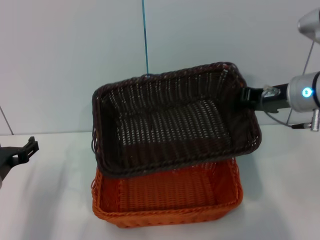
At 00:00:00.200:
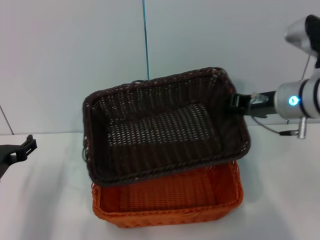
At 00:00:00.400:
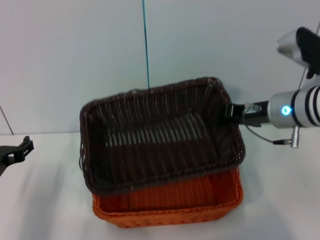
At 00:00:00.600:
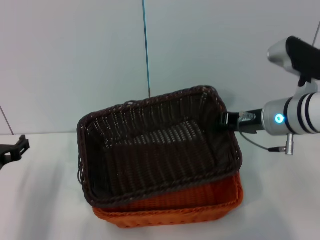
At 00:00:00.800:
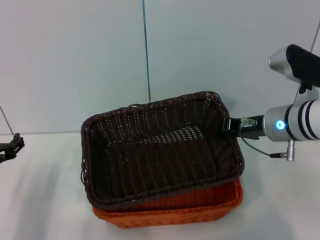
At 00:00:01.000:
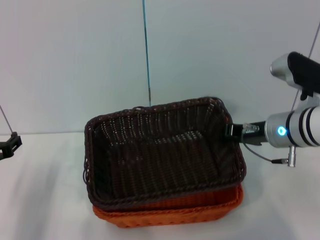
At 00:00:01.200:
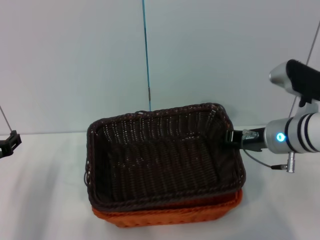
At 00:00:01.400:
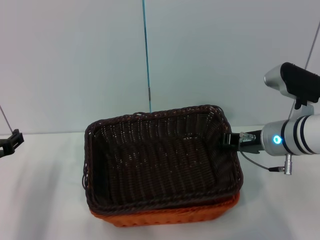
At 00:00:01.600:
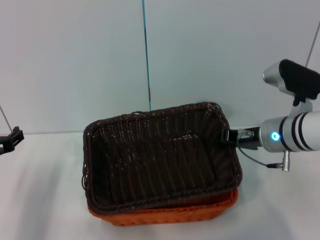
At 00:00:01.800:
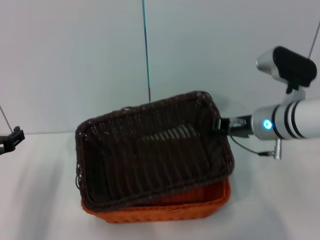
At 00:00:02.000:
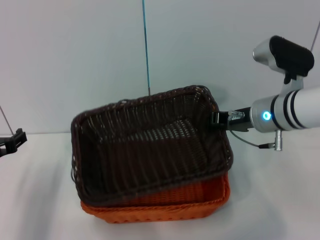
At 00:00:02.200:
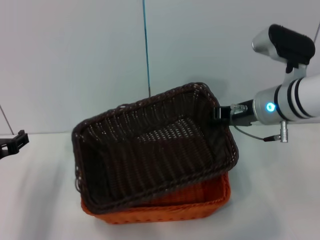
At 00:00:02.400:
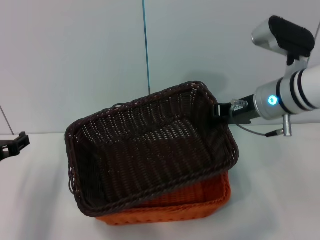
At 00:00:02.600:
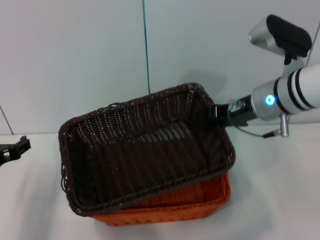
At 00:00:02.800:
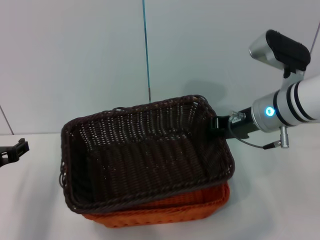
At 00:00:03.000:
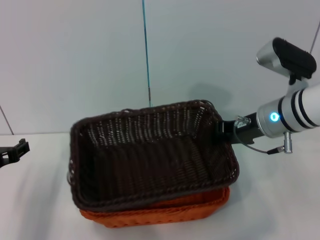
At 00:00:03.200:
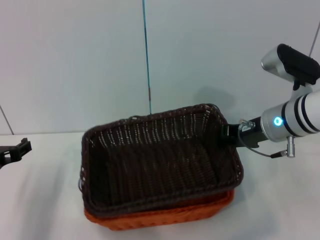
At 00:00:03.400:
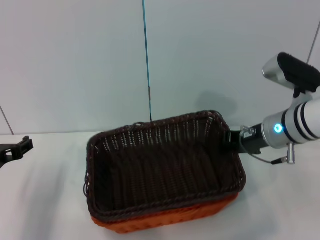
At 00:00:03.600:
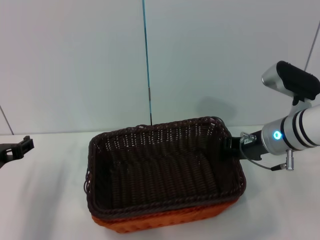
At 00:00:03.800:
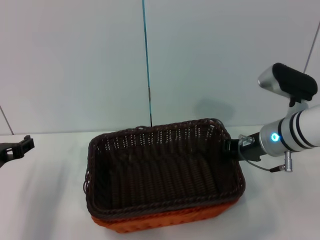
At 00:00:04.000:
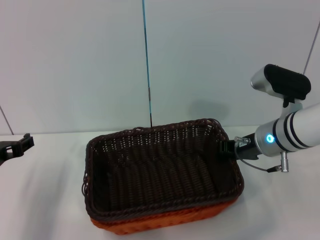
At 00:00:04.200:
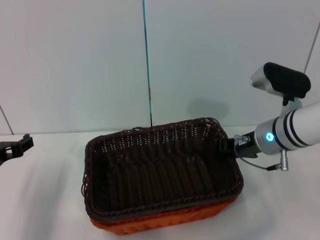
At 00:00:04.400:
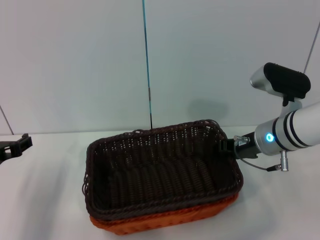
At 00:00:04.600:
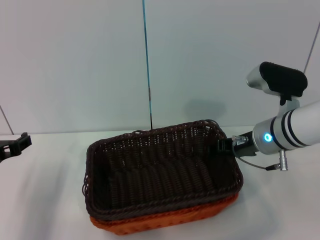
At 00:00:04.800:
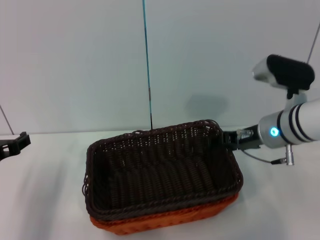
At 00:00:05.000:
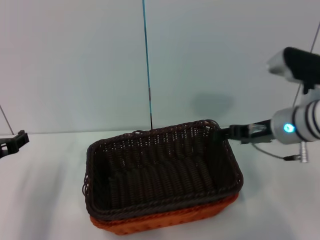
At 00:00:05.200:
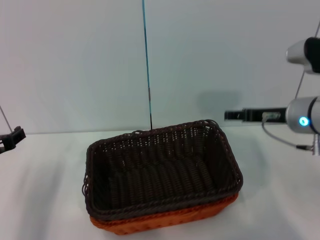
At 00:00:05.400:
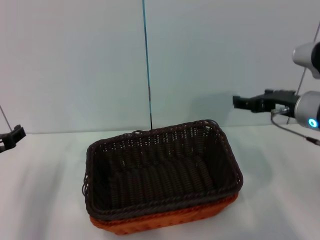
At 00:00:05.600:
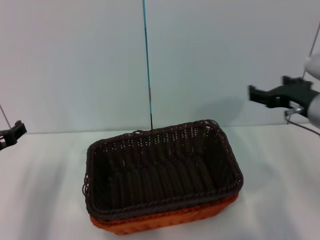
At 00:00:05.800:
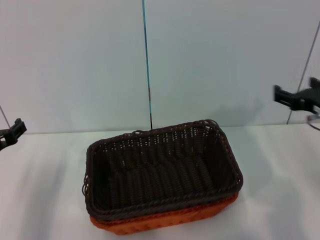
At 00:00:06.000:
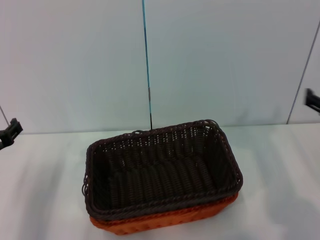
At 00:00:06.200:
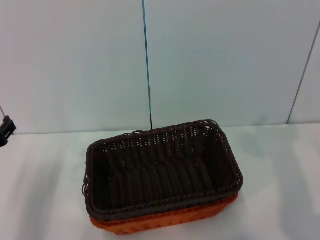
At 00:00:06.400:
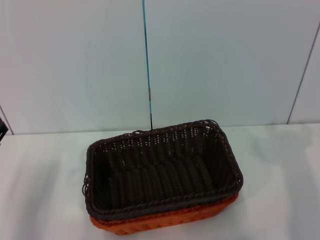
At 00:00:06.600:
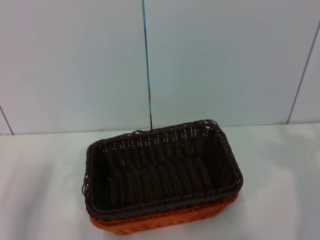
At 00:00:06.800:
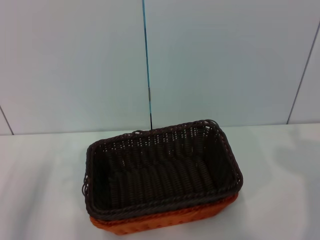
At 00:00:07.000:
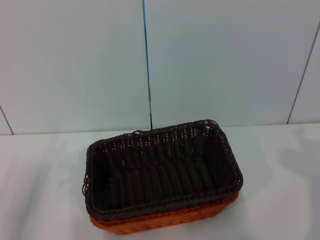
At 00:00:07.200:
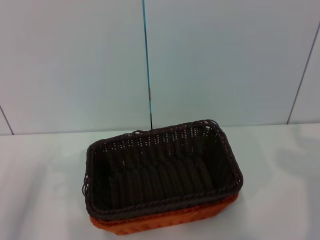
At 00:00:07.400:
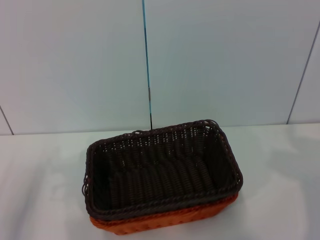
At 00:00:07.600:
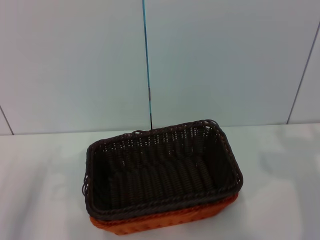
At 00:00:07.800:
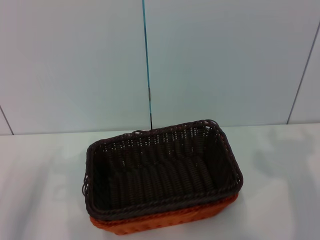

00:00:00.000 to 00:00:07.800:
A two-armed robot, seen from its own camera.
Step, 00:00:00.000 to 00:00:04.600: Place the dark basket on the light basket with the right gripper.
00:00:00.000 to 00:00:01.600: The right gripper is displaced downward by about 5 cm.
00:00:03.200 to 00:00:04.600: The grippers move only a little.
00:00:04.600 to 00:00:06.200: The right gripper moves to the right and backward, some 20 cm, and opens up.
